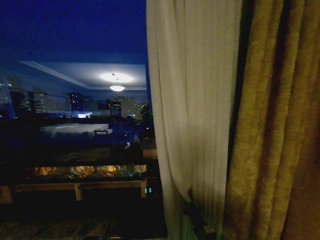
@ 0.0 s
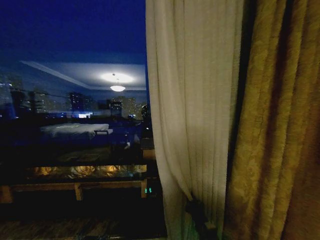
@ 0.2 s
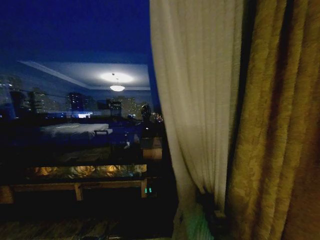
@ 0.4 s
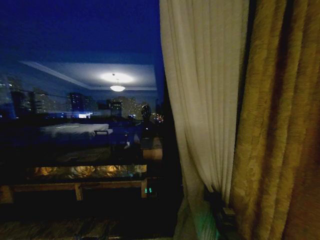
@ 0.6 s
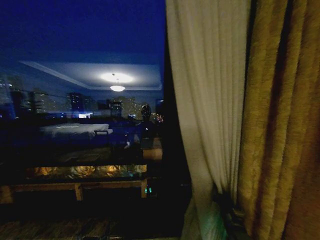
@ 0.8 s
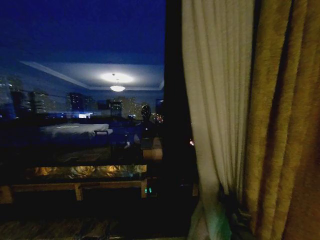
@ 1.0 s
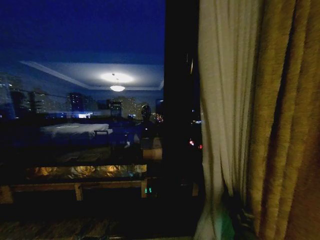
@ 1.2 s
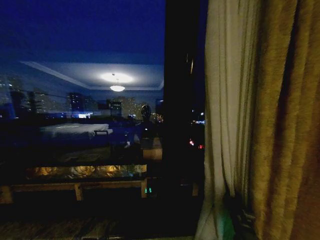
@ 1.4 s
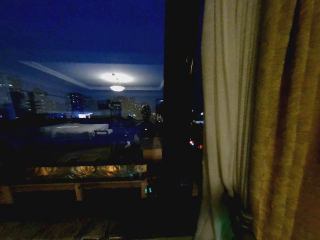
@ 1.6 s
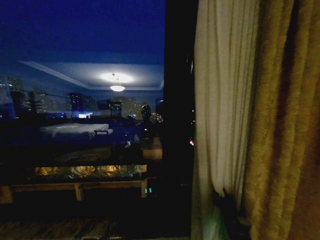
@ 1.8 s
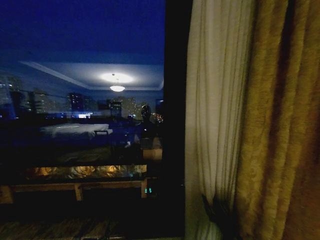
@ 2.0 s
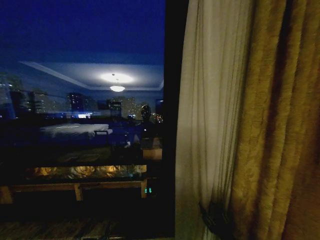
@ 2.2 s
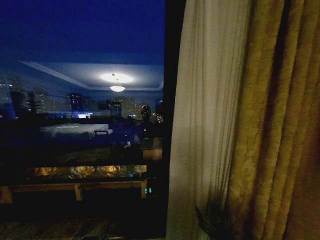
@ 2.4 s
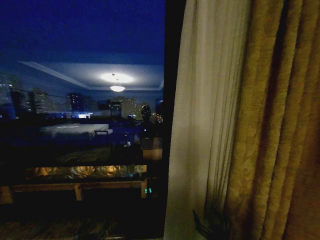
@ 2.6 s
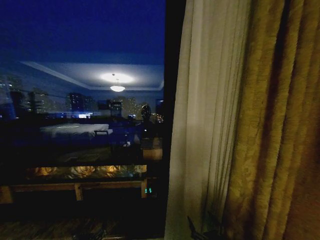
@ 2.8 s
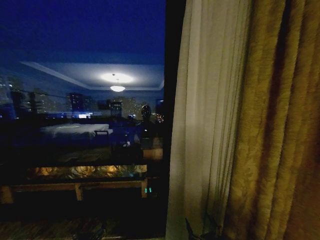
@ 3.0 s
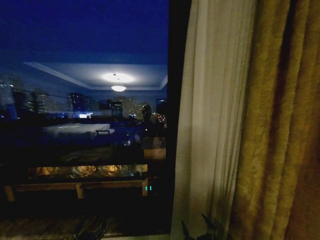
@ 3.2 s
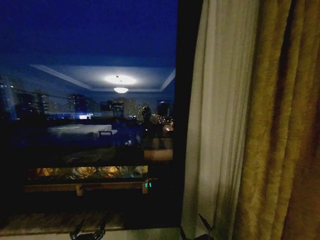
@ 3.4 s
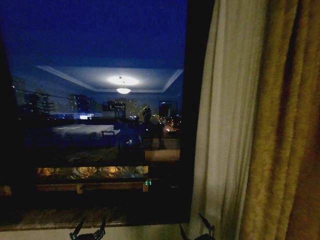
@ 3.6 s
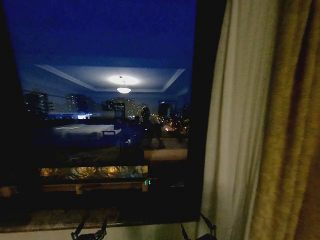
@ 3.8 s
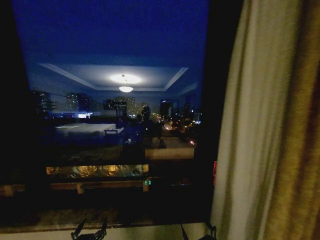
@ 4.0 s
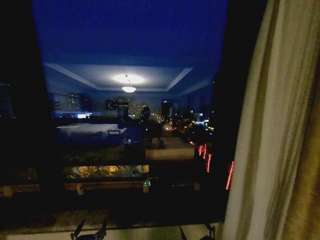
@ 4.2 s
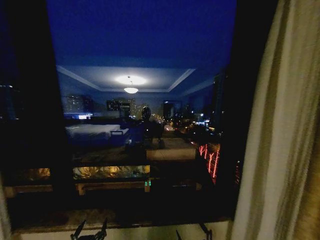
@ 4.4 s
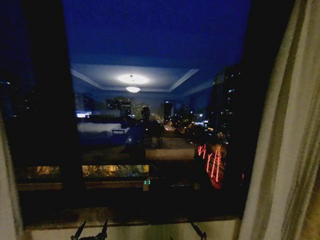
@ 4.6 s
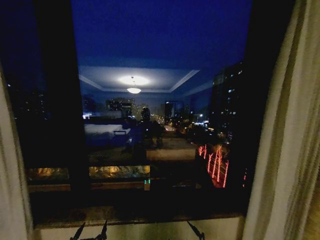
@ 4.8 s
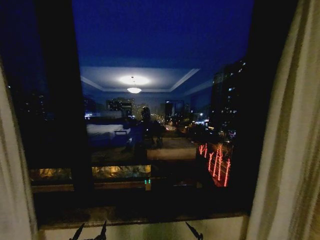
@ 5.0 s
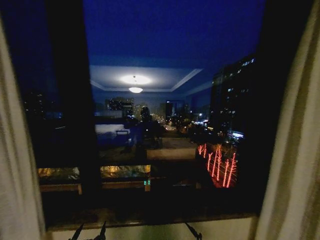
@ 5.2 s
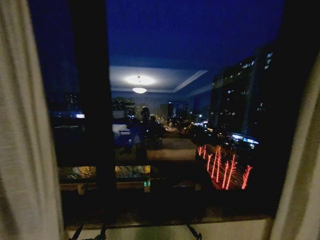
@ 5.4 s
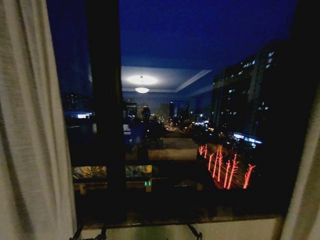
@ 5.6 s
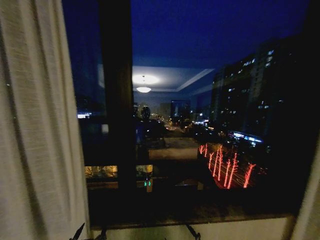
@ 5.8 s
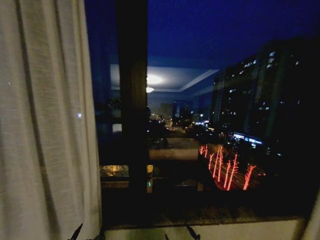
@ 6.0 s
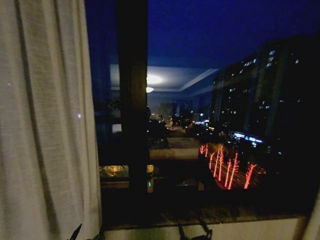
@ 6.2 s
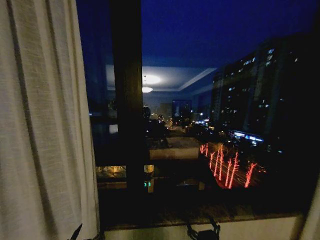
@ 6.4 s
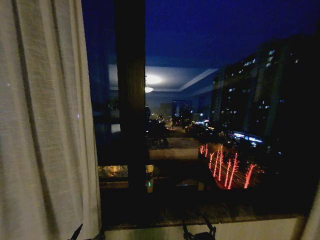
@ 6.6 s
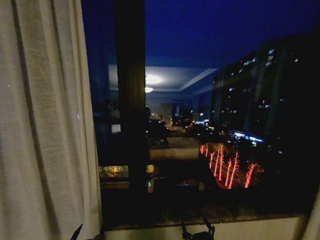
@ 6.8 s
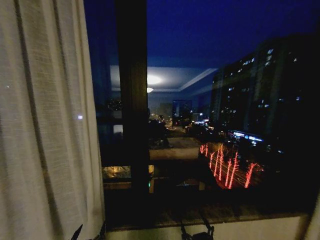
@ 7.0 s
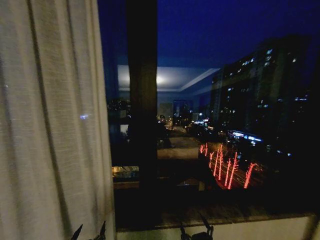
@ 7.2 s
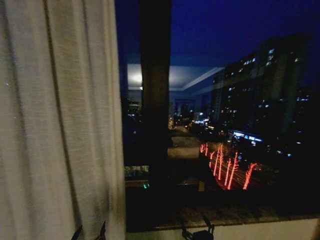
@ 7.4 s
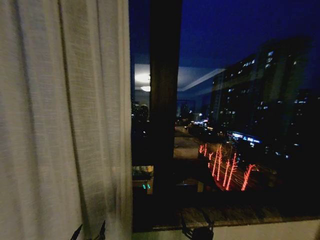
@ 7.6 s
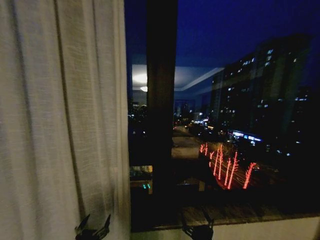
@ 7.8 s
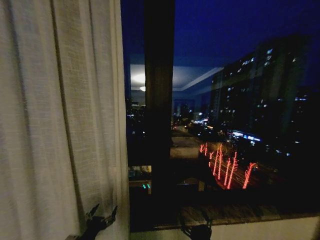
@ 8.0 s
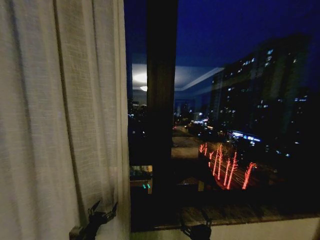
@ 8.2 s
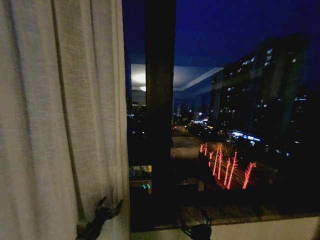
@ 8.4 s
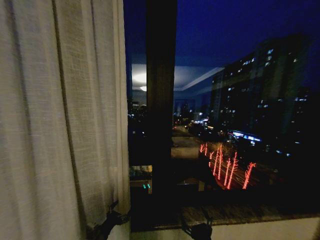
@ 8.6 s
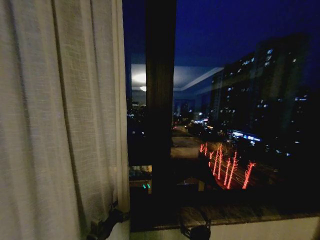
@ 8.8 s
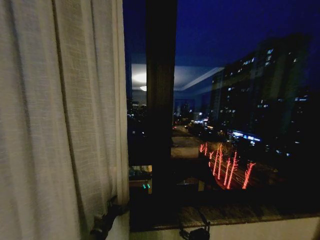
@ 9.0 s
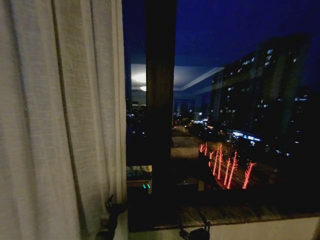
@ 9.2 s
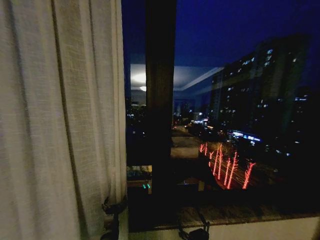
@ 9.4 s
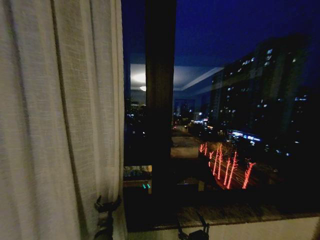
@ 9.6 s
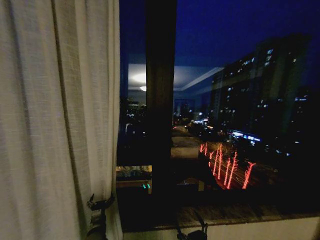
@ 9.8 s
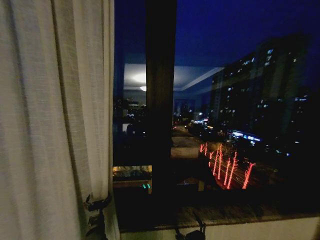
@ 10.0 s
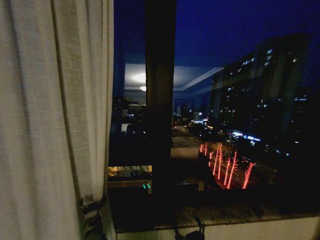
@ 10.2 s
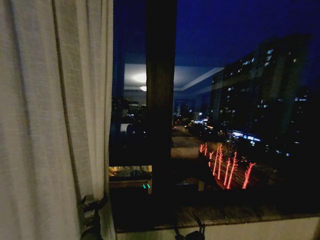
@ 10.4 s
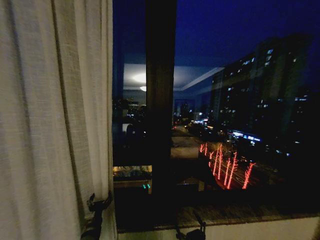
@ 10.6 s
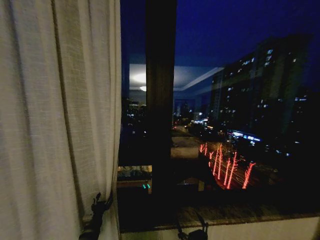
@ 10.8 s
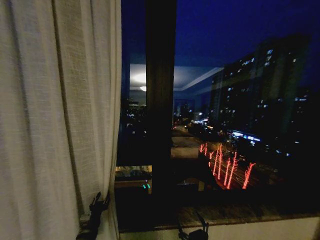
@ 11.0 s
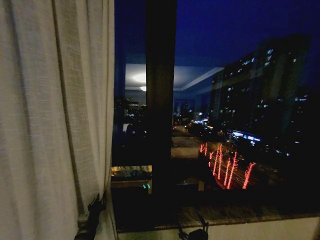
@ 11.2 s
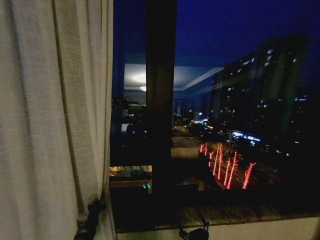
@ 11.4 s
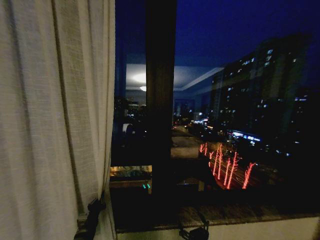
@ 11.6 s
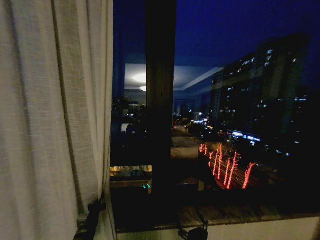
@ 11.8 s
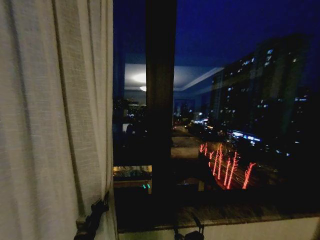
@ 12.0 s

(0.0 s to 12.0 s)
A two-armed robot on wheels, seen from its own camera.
Task of the whole recording: Open the curtains by pulling them apart, changing their state from closed to fully open.
0.0 s - 1.6 s: The right gripper heads to the right, covering about 15 cm.
1.6 s - 3.0 s: The right gripper travels backward and to the left by roughly 20 cm, and opens its fingers.
7.6 s - 9.0 s: The left gripper shifts approximately 20 cm forward.
9.0 s - 10.4 s: The left gripper moves approximately 10 cm to the right and comes back.
10.4 s - 12.0 s: The left gripper closes its fingers.

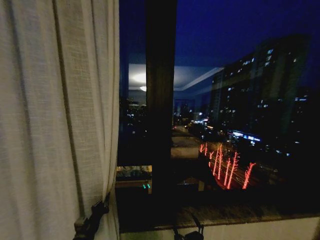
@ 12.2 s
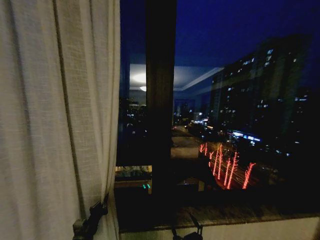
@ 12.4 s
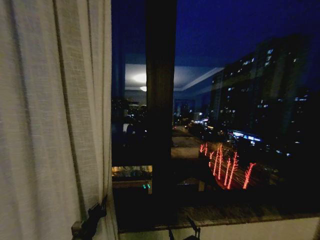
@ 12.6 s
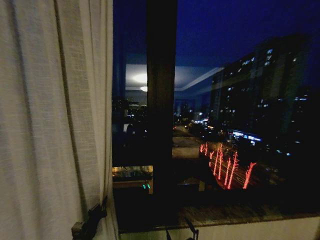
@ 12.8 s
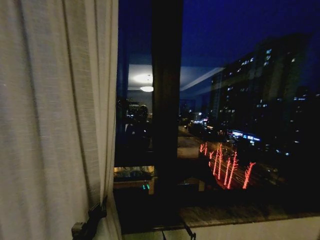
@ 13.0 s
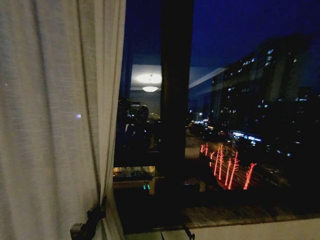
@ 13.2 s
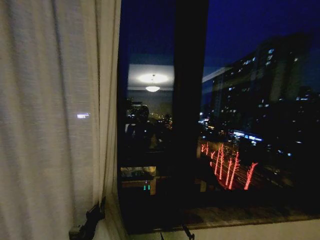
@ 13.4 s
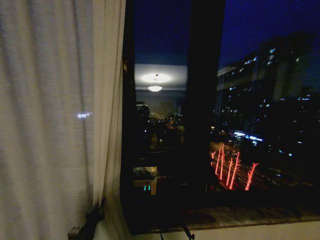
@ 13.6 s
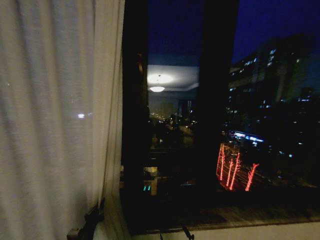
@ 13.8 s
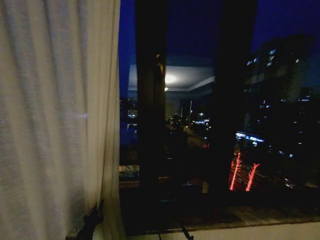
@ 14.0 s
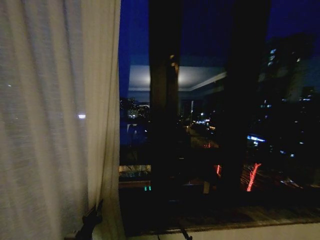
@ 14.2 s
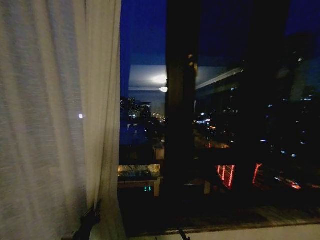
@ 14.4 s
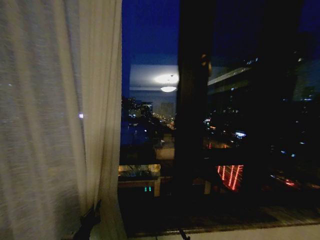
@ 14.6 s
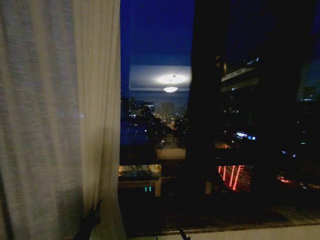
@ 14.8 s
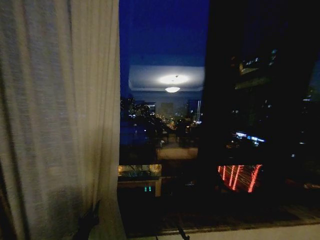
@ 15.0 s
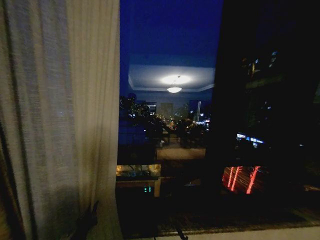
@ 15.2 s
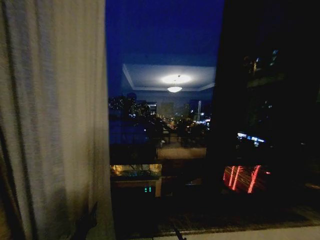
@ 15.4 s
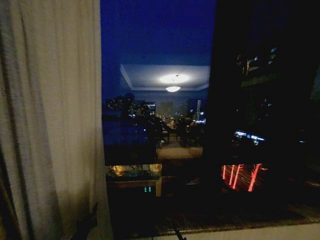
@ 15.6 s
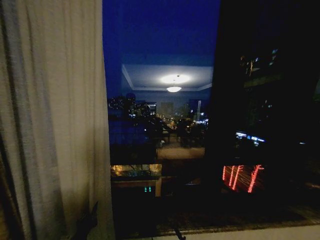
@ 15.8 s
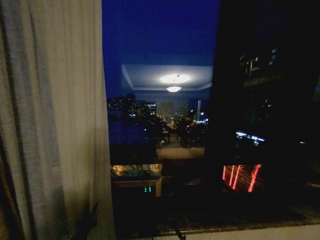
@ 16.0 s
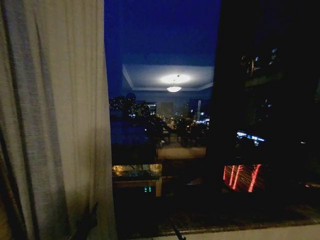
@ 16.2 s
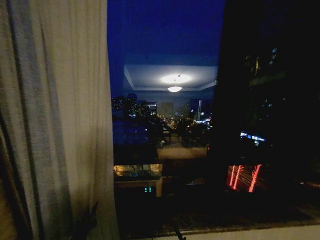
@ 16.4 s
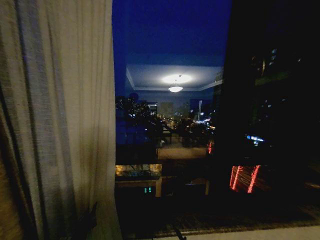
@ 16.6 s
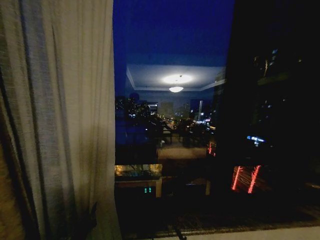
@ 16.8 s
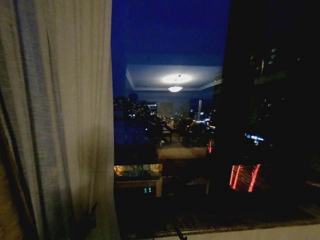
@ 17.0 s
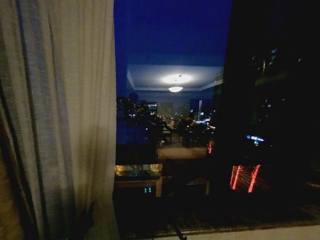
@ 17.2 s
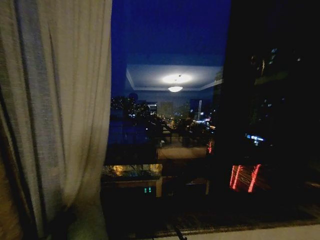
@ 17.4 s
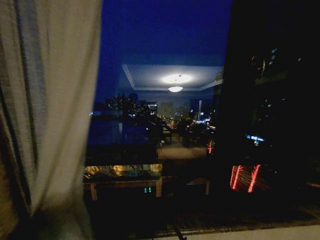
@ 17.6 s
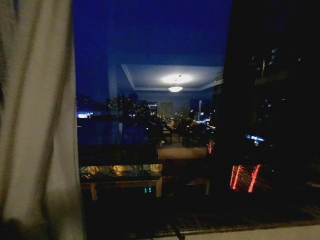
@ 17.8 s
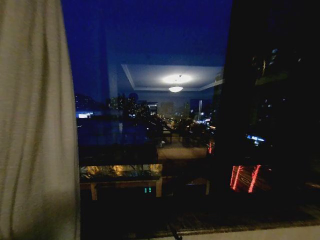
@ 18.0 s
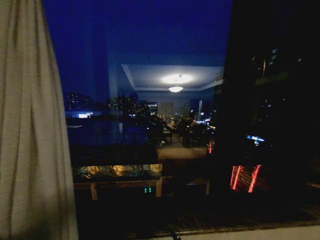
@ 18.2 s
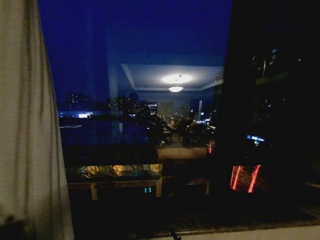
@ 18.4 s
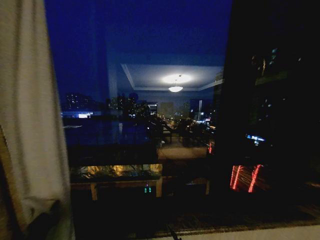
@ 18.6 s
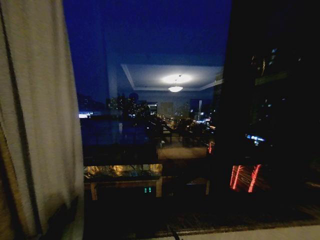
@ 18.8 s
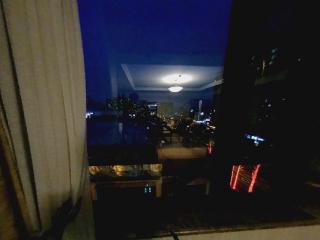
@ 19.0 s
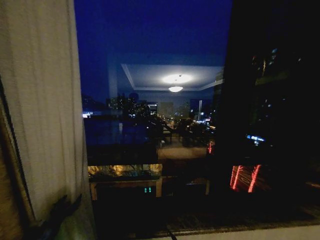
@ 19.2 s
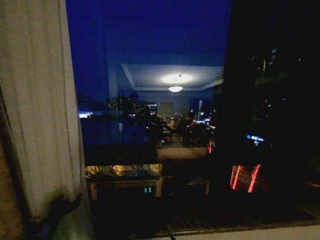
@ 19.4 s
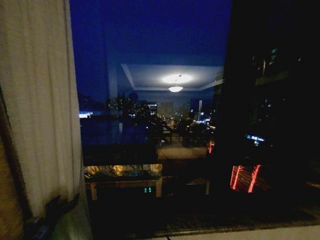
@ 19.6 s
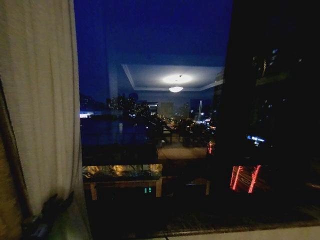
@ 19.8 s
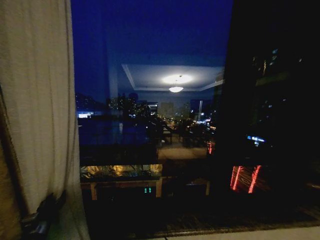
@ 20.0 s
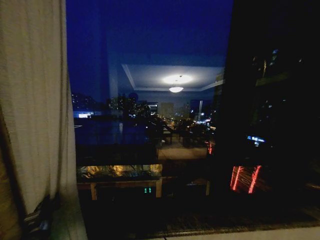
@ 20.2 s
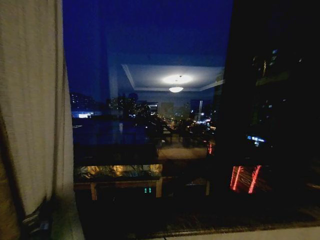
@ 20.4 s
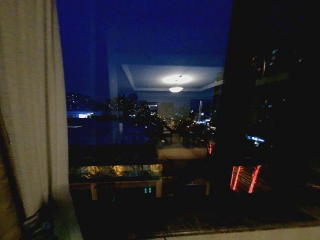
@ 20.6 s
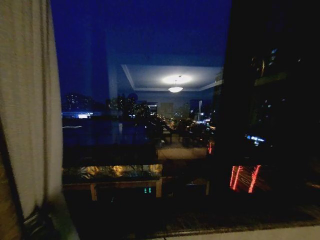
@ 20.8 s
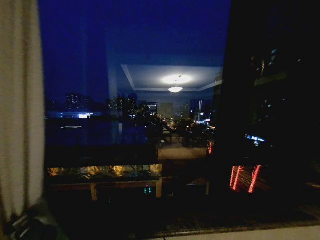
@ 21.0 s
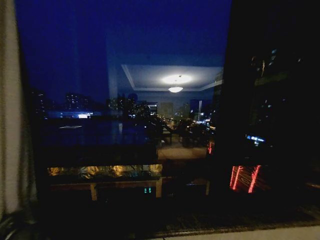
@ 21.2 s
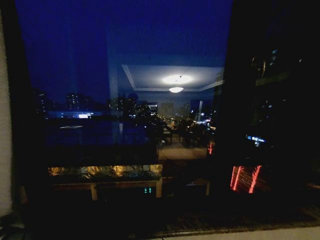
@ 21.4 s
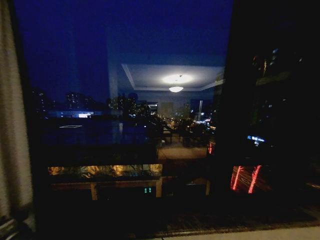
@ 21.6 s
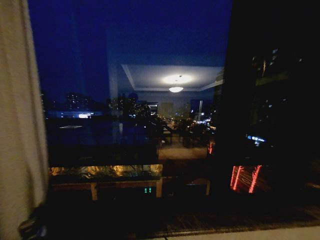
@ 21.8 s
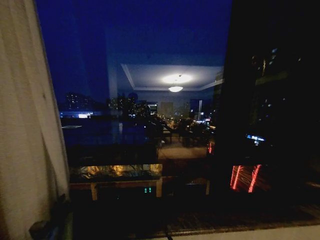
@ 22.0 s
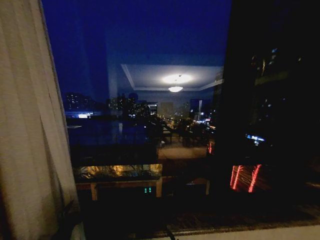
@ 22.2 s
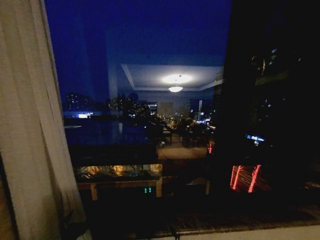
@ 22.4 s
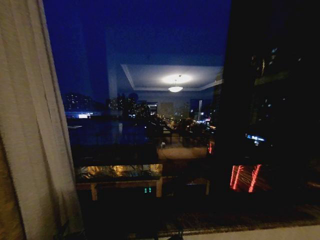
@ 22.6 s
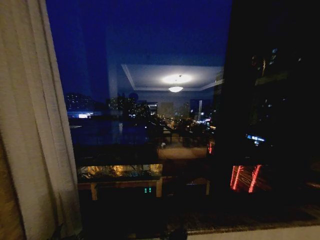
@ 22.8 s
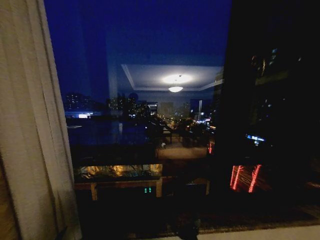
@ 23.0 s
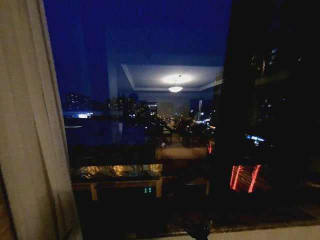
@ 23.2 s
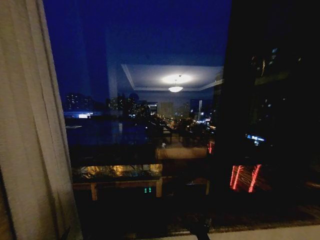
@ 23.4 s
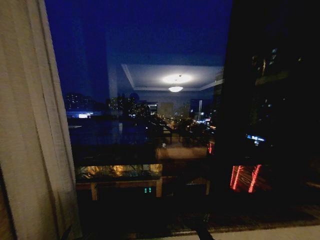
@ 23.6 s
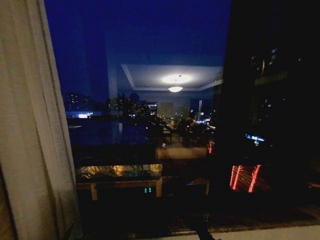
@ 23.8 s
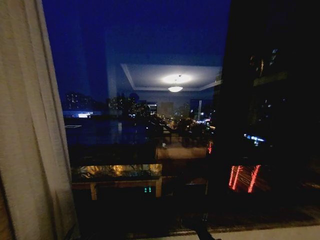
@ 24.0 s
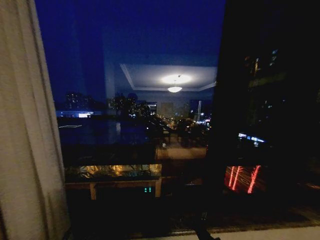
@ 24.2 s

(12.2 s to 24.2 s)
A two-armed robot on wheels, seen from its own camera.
Task of the whole recording: Open the curtains by pulling them apart, changing their state from closed to fully open.
12.2 s - 13.8 s: The right gripper changes place by about 5 cm.
15.2 s - 16.6 s: Both grippers stay put.
16.6 s - 18.2 s: The left gripper heads to the left, covering some 20 cm.
18.2 s - 19.8 s: The left gripper travels forward and to the right by approximately 10 cm, and opens up.
19.8 s - 21.2 s: The left gripper travels forward by approximately 5 cm, and closes its fingers.
21.2 s - 22.6 s: The left gripper travels to the right and backward by approximately 25 cm, and opens its fingers.
22.6 s - 24.2 s: The right gripper moves to the right and forward, approximately 10 cm.
